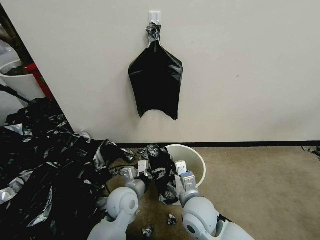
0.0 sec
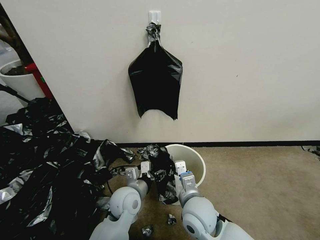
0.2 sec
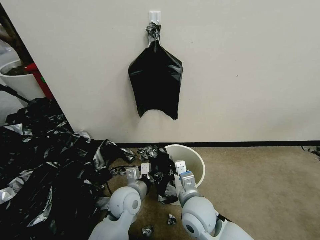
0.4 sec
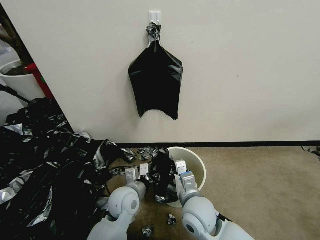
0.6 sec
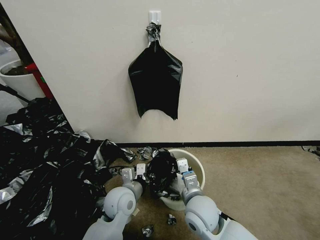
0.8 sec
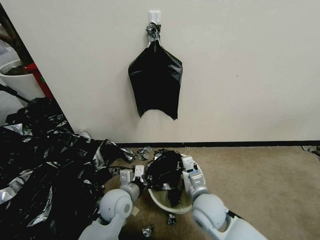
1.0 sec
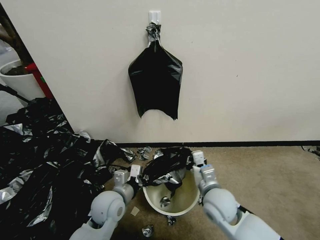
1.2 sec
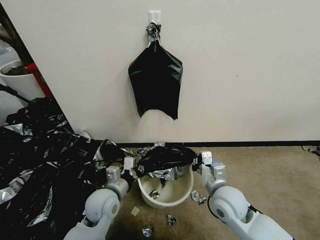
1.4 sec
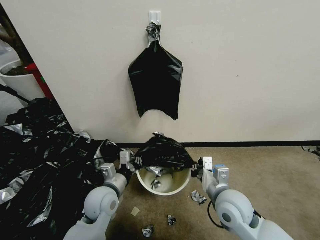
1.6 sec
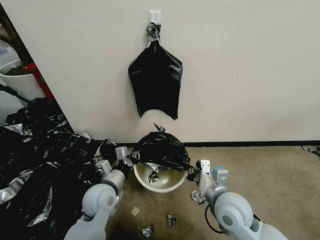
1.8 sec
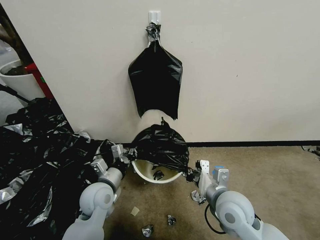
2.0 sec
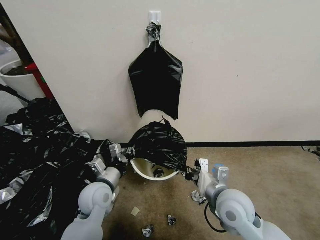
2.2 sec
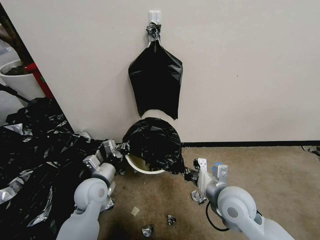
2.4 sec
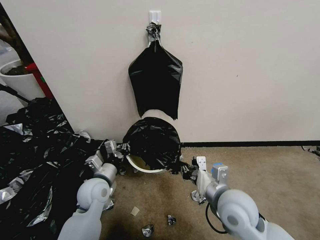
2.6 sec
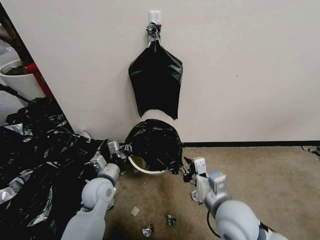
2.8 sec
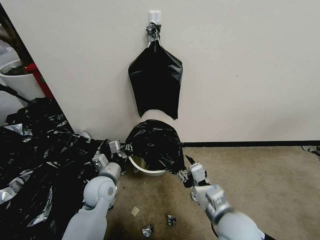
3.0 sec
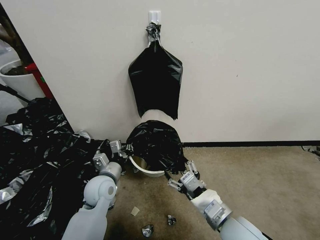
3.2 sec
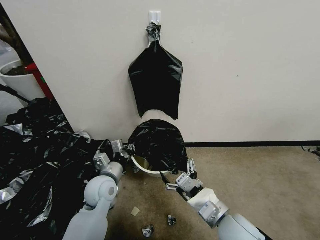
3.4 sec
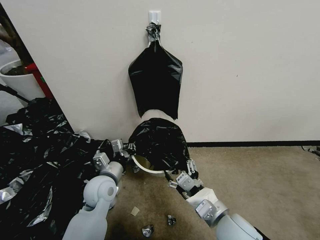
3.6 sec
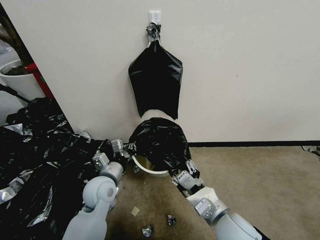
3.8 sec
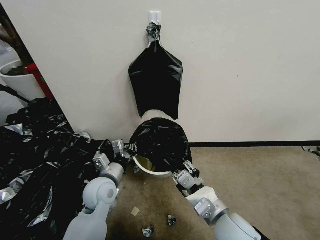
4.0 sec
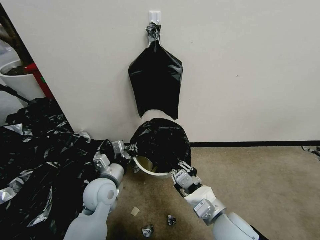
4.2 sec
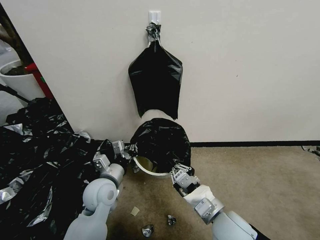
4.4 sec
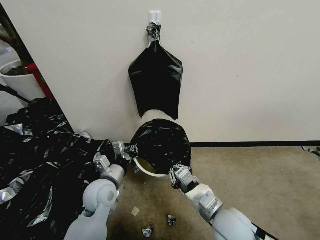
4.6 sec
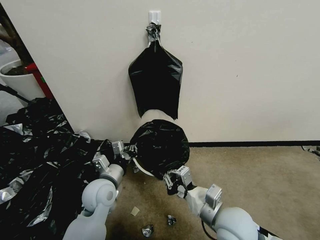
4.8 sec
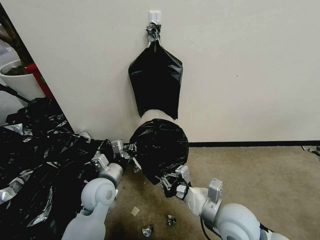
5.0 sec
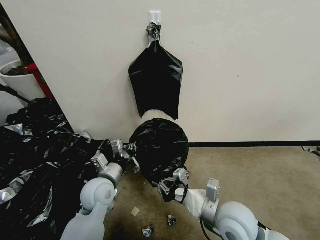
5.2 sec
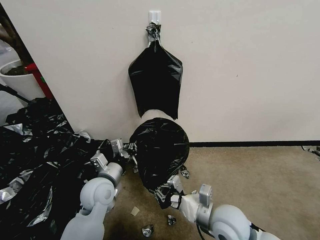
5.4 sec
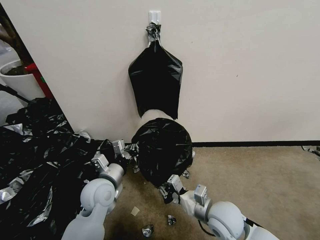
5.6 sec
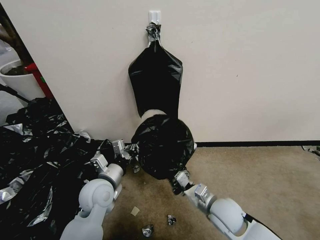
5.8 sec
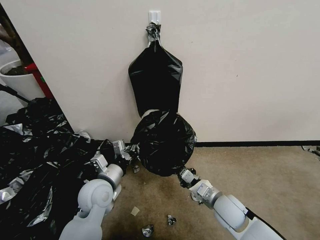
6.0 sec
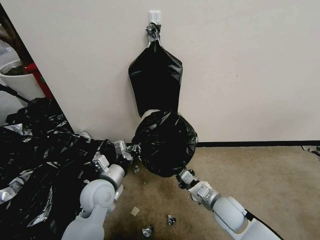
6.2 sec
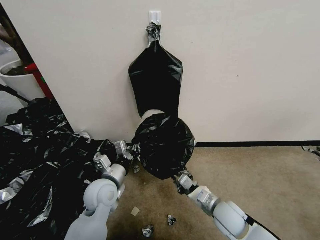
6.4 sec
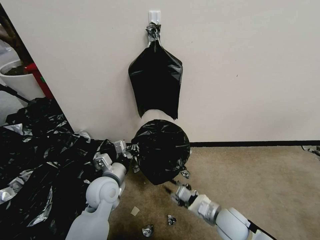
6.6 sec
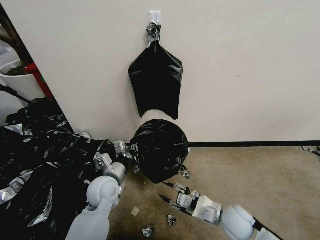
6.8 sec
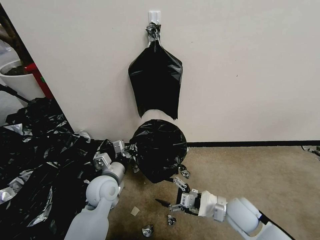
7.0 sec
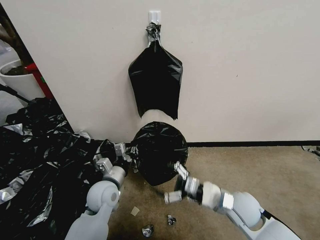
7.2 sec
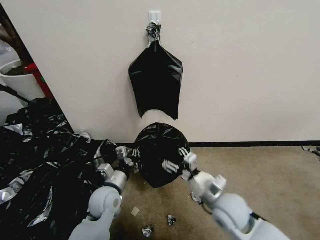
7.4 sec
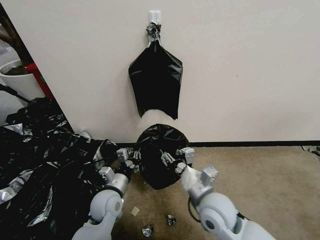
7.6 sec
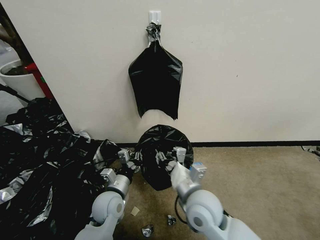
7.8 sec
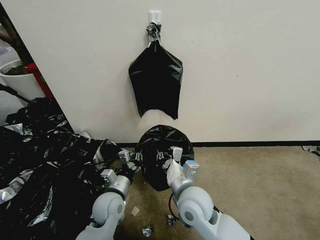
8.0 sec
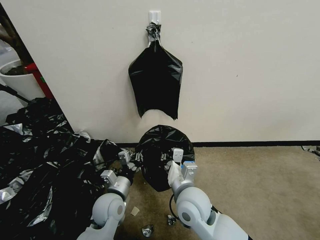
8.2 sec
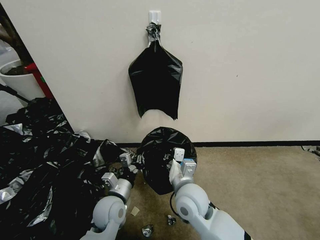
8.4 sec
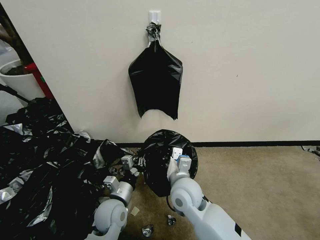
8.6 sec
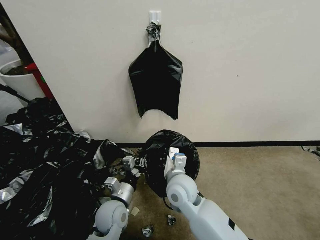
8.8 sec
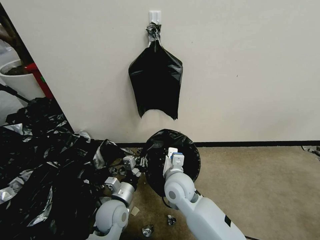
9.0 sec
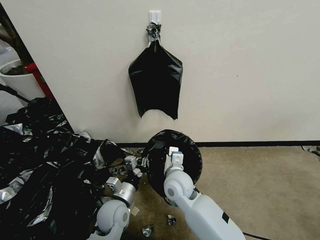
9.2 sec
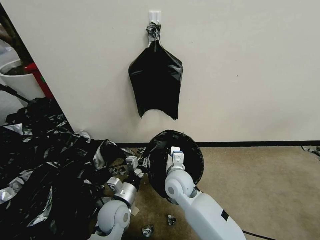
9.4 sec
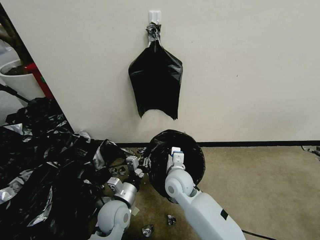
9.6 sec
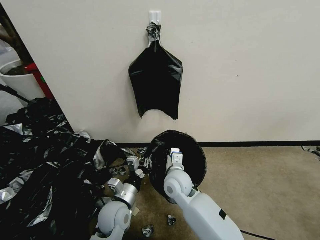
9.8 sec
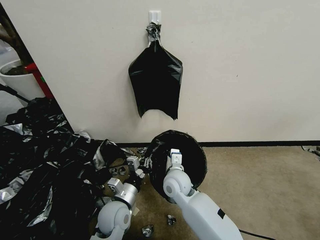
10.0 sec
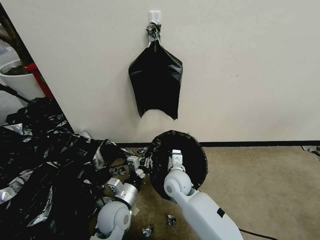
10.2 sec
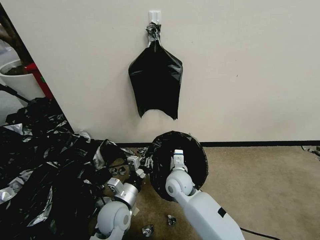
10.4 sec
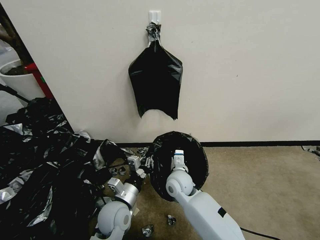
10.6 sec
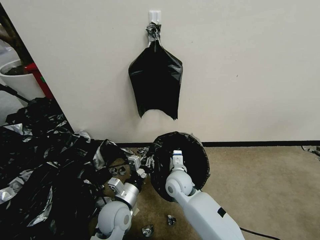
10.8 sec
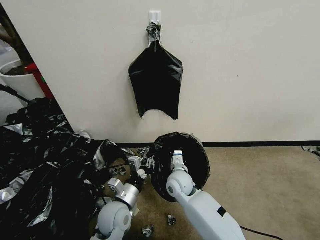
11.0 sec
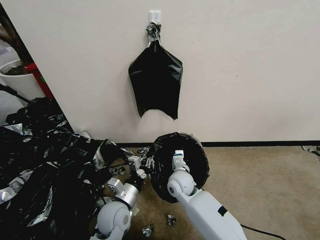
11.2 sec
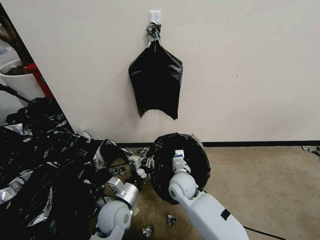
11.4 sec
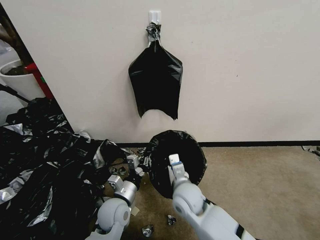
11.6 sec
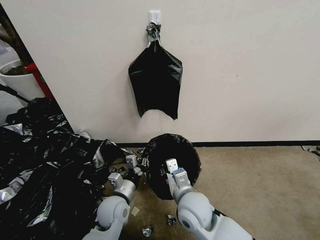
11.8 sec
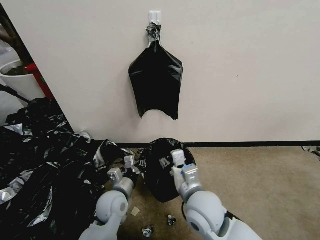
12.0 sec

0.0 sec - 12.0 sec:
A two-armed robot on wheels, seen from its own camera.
Task of the whole recording: Place a trash bag onto the trash bin.
0.0 sec - 1.6 sec: The right gripper goes approximately 10 cm to the right. Meanwhile the left gripper is displaced to the left by about 5 cm, and closes up.
1.6 sec - 3.0 sec: The right gripper travels backward by some 5 cm, and opens its fingers.
3.0 sec - 4.4 sec: The right gripper closes.
4.4 sec - 6.0 sec: The right gripper shifts approximately 10 cm downward and forward.
6.0 sec - 7.6 sec: The right gripper goes roughly 10 cm upward and to the left, and opens. Meanwhile the left gripper heads downward, covering about 5 cm.
7.6 sec - 9.0 sec: The right gripper shifts roughly 15 cm to the left and forward, and closes.
9.0 sec - 10.4 sec: The right gripper heads downward, covering about 5 cm.
10.4 sec - 12.0 sec: The right gripper heads backward and upward, covering about 15 cm, and opens.

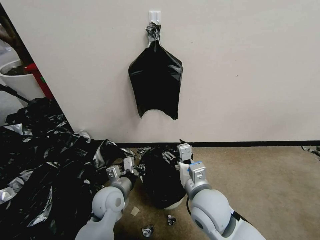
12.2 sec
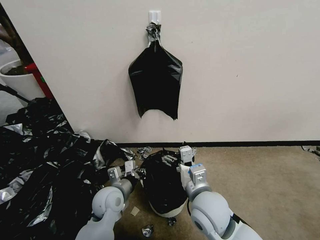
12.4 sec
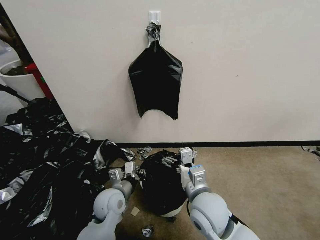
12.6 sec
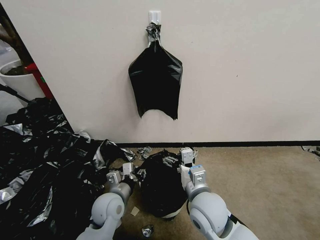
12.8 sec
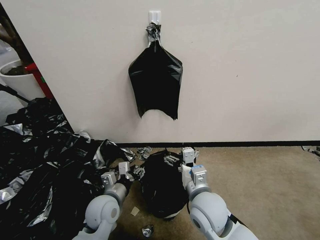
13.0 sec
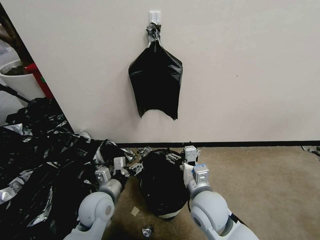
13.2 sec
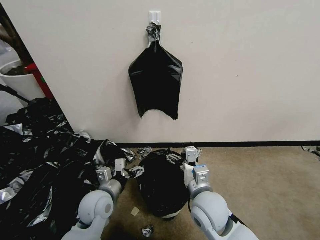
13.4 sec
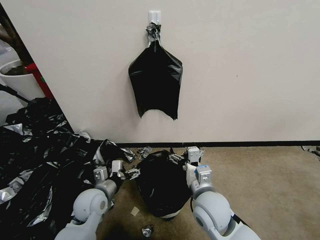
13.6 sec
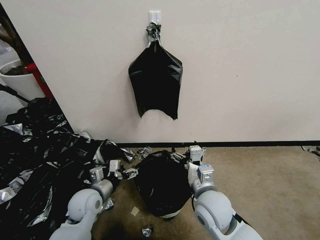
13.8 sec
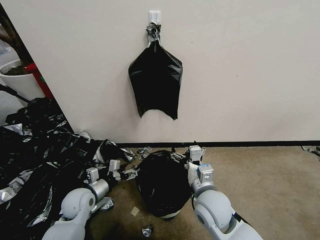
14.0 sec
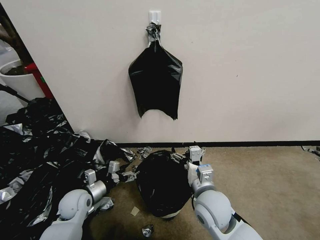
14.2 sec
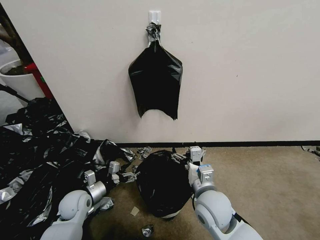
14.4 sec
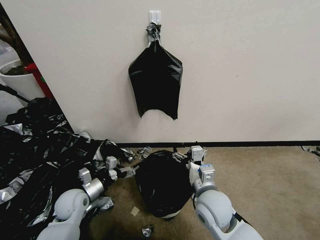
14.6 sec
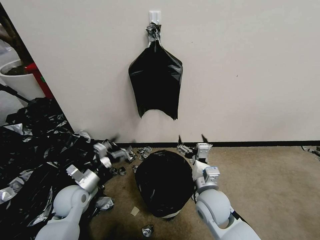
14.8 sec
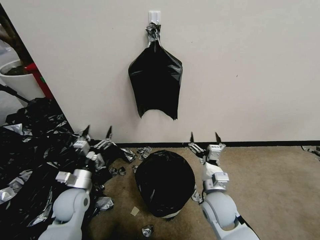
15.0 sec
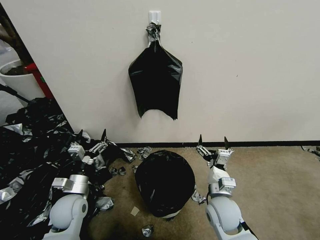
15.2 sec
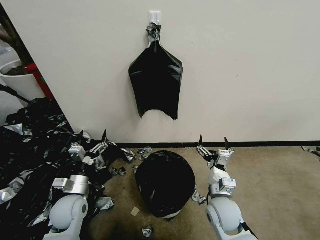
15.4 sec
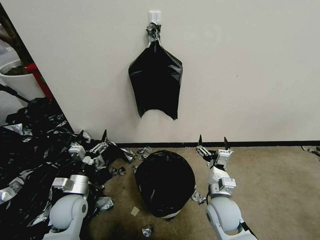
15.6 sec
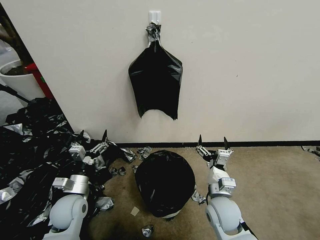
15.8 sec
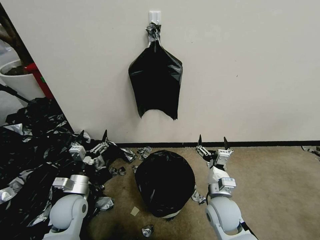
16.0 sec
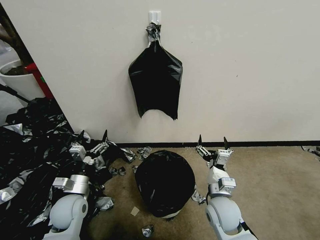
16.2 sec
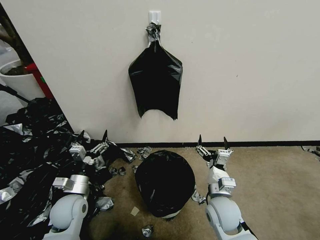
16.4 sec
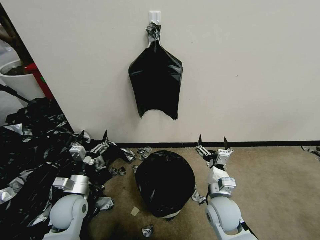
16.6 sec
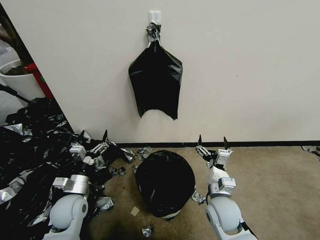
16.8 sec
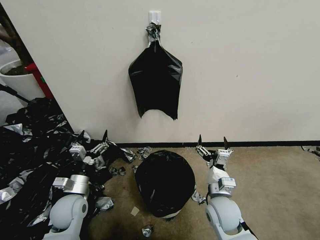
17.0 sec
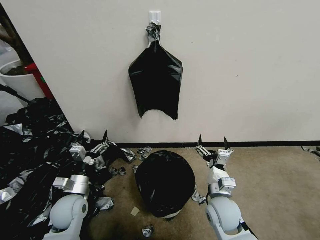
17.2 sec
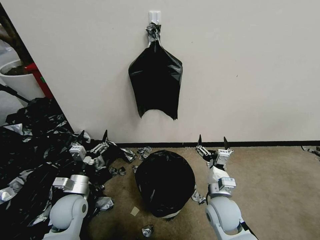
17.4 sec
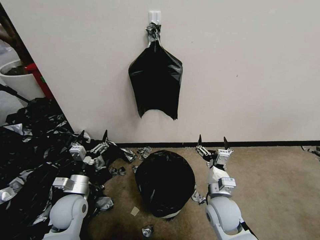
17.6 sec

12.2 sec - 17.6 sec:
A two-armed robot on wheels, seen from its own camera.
Task of the whole recording: Place a trash bag onto the trash bin.
12.2 sec - 13.6 sec: The left gripper moves to the left, approximately 5 cm, and opens.
13.6 sec - 15.0 sec: The left gripper moves to the left, approximately 5 cm, while the right gripper is displaced downward by roughly 5 cm.
15.0 sec - 16.2 sec: The grippers stay close to where they were, moving slightly.
16.2 sec - 17.6 sec: Neither gripper changes place.

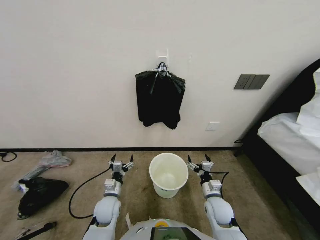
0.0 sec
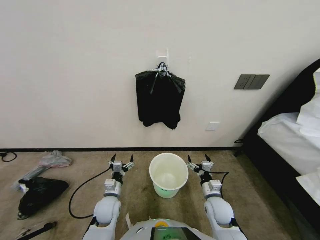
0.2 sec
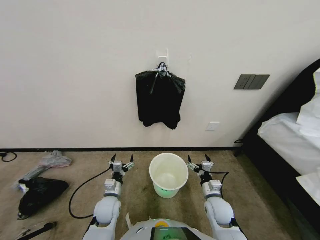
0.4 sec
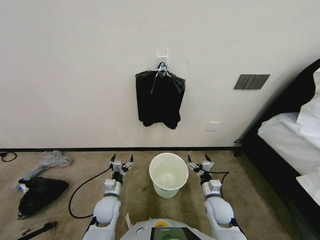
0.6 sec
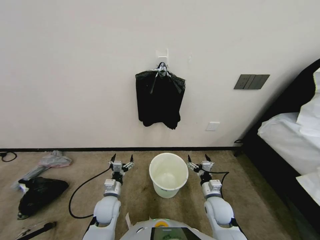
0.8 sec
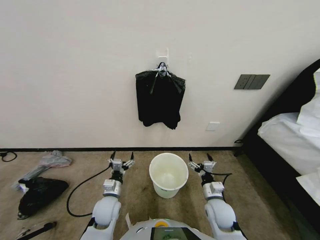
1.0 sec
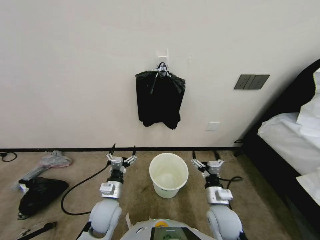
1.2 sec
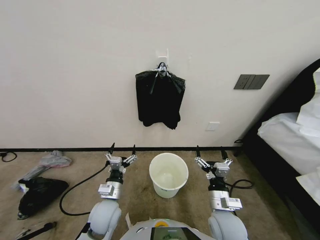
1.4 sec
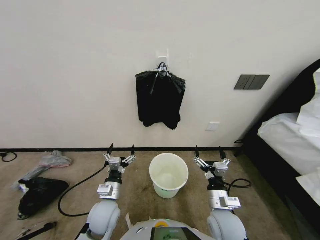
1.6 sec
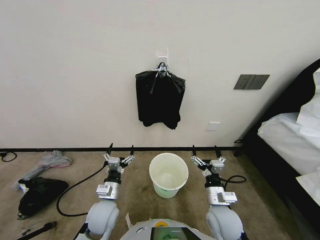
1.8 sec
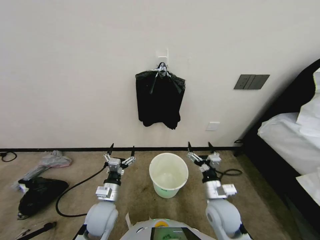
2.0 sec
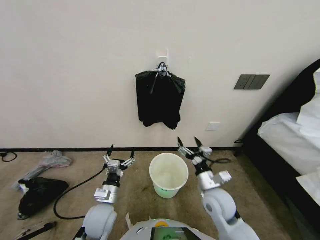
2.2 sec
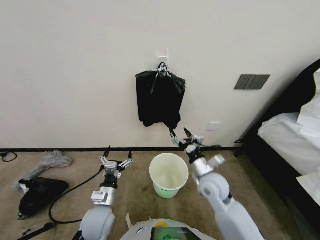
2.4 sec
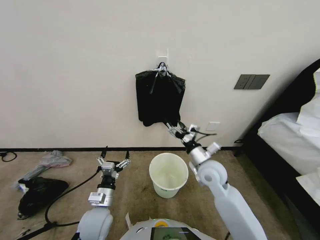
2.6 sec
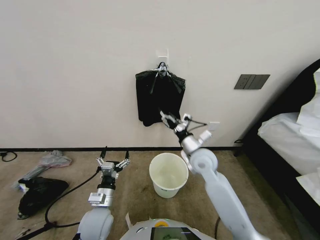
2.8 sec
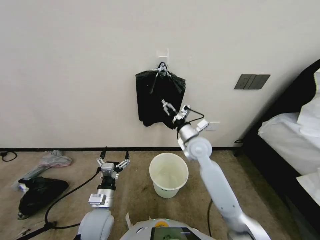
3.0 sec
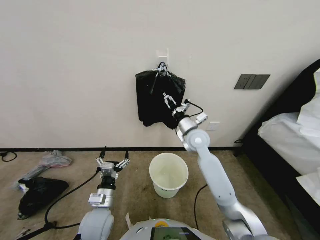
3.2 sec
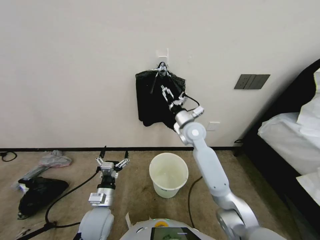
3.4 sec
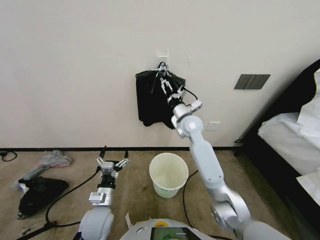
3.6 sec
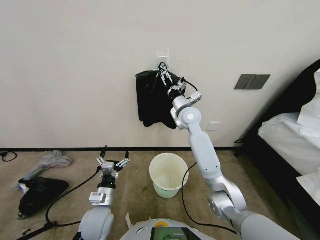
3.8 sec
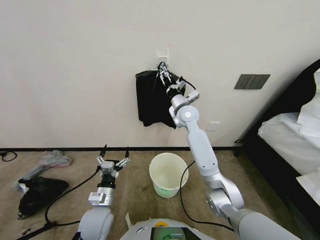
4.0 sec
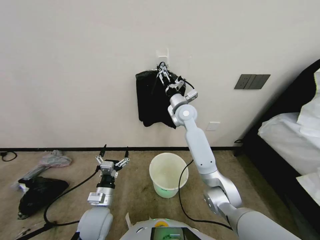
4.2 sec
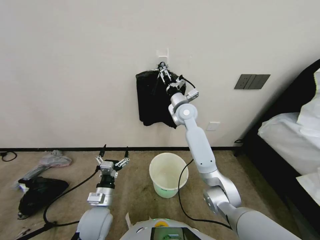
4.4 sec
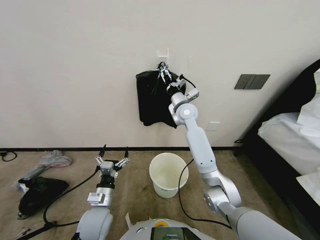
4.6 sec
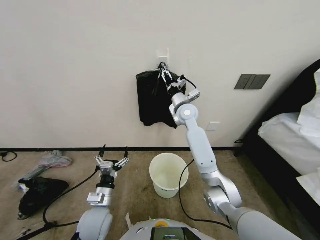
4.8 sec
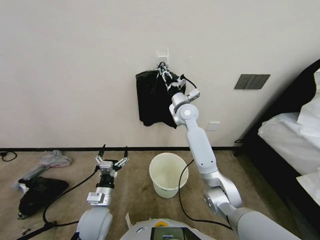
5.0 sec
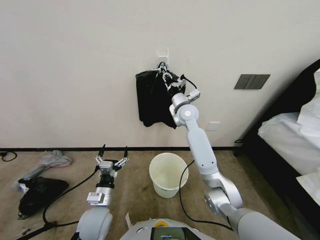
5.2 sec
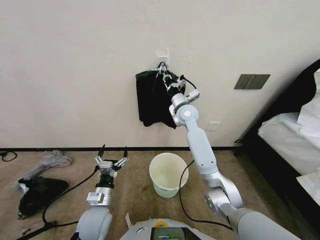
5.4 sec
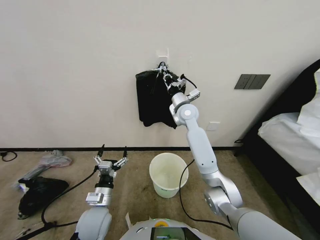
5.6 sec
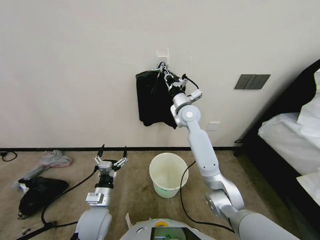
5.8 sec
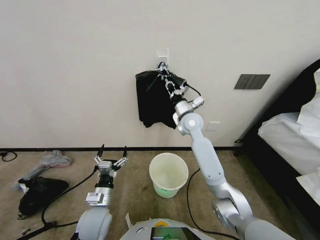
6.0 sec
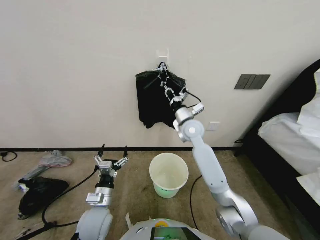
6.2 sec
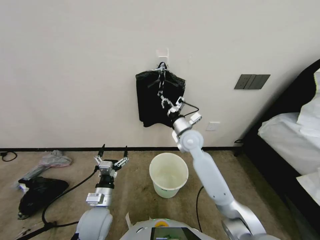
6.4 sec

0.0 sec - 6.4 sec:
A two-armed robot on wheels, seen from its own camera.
Task of the whole recording: Place a trash bag onto the trash bin.
1.6 sec - 3.2 sec: The right gripper shifts approximately 25 cm forward and upward.
3.2 sec - 4.8 sec: The right gripper is displaced forward and upward by approximately 15 cm.
4.8 sec - 6.4 sec: The right gripper moves backward and downward, about 10 cm, and closes its fingers.
